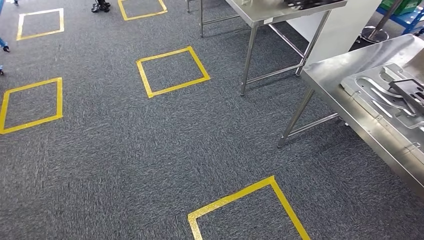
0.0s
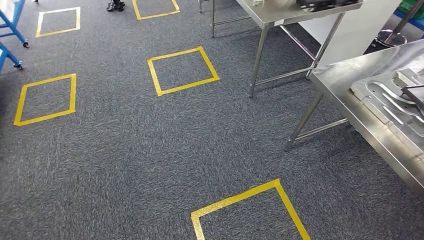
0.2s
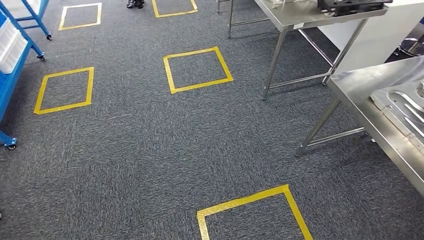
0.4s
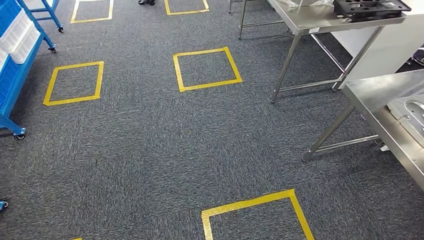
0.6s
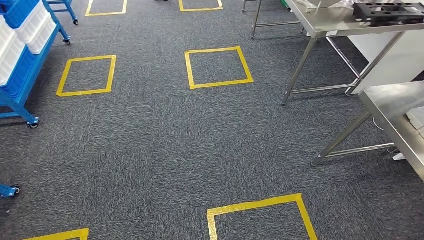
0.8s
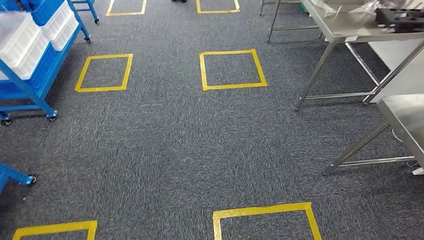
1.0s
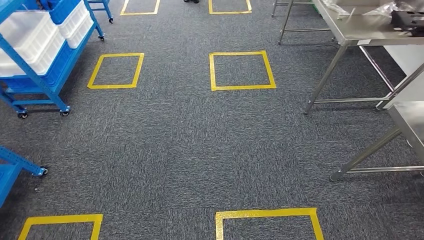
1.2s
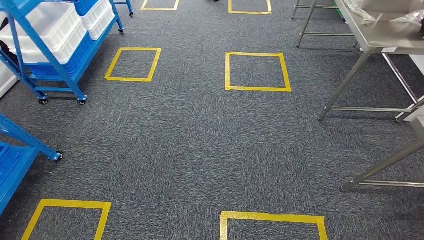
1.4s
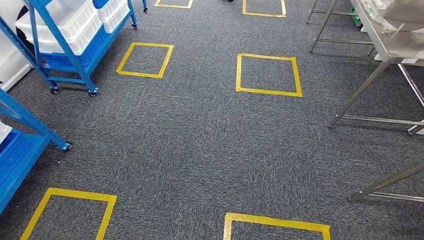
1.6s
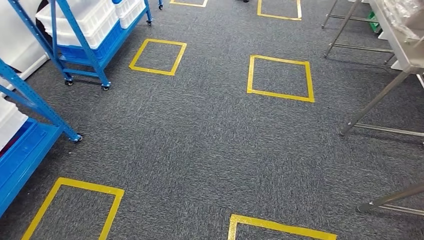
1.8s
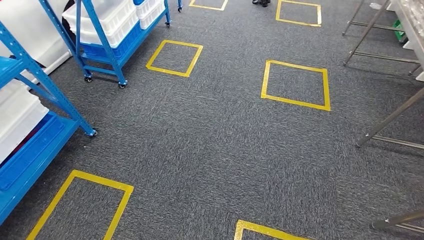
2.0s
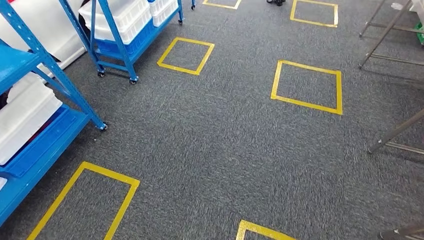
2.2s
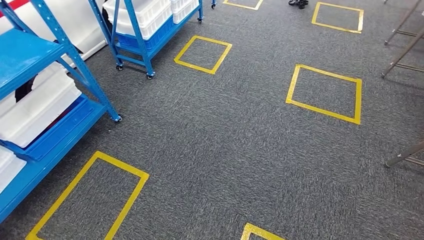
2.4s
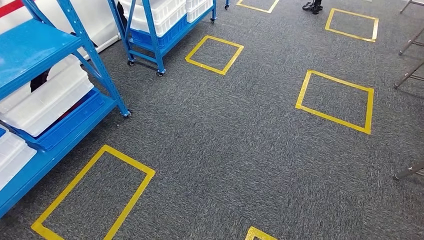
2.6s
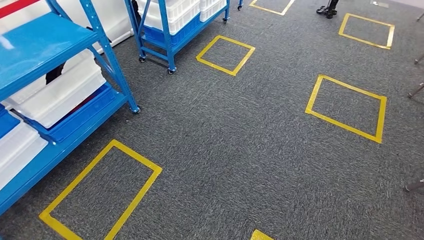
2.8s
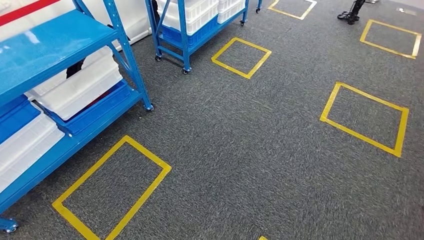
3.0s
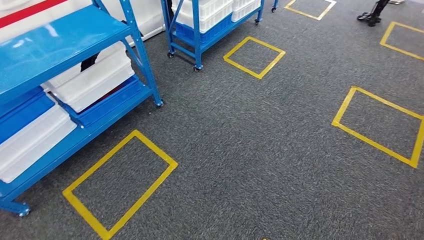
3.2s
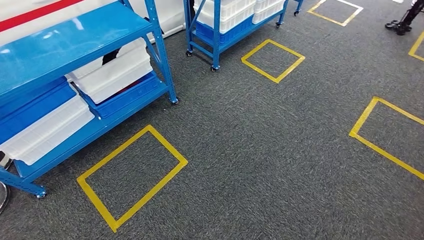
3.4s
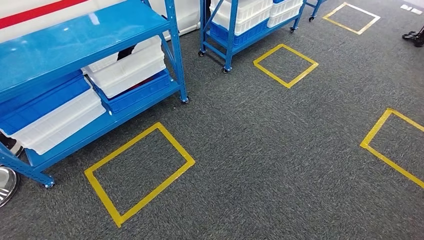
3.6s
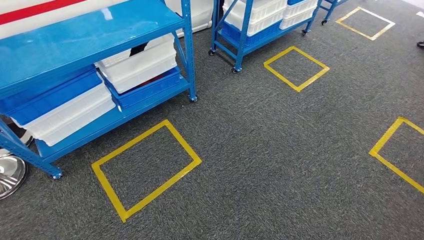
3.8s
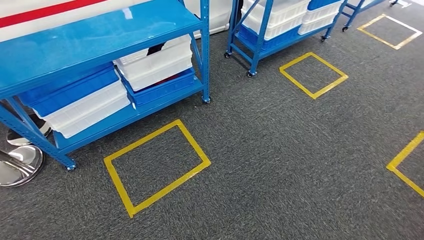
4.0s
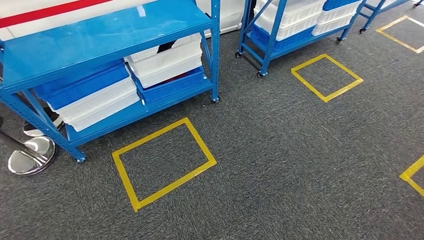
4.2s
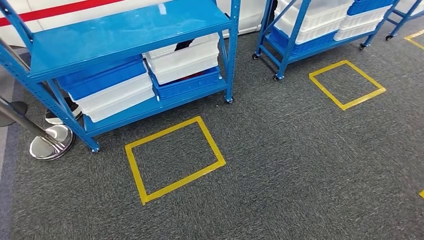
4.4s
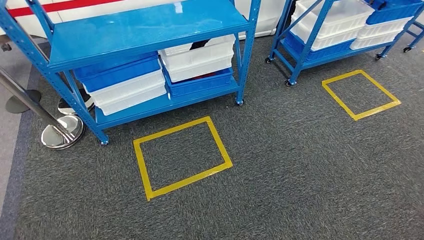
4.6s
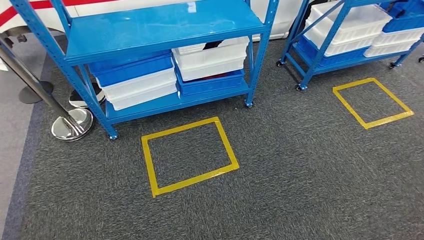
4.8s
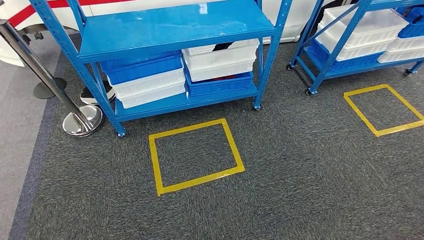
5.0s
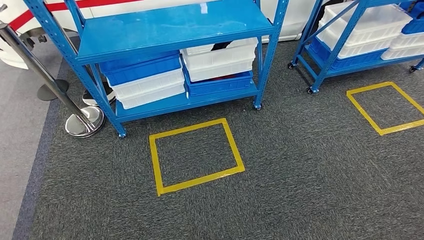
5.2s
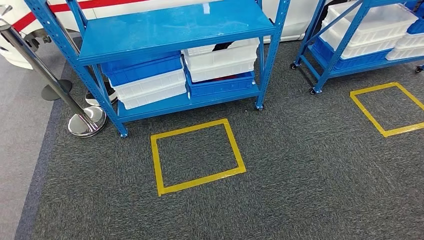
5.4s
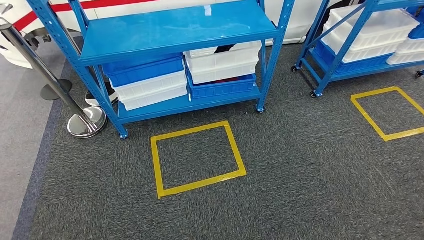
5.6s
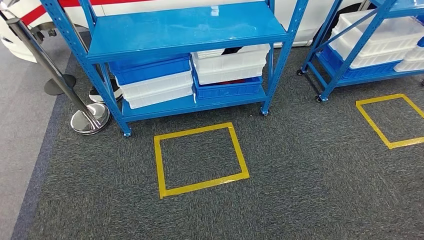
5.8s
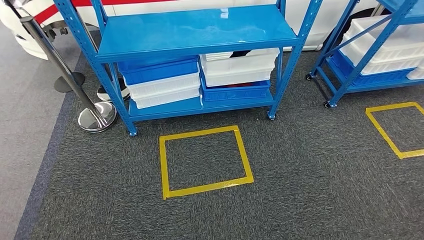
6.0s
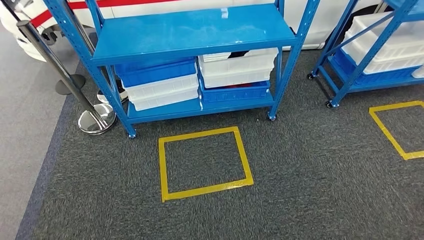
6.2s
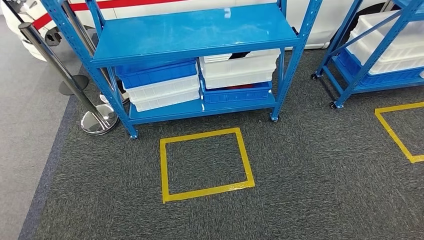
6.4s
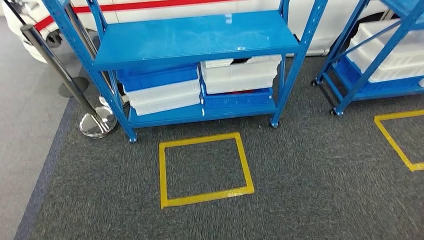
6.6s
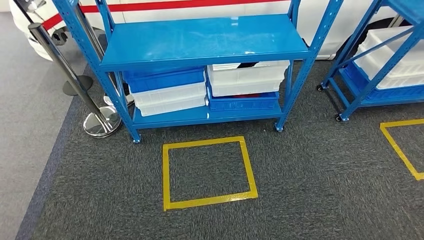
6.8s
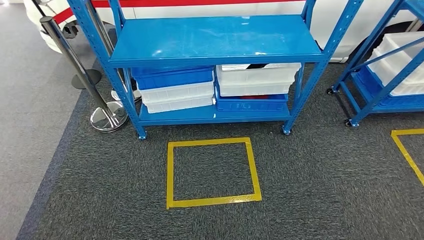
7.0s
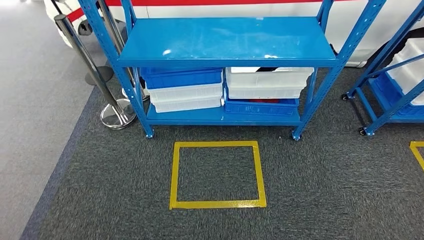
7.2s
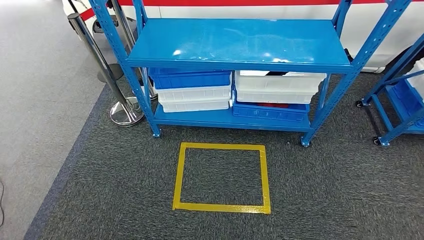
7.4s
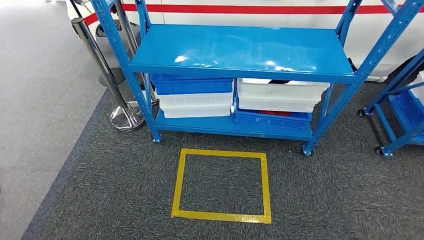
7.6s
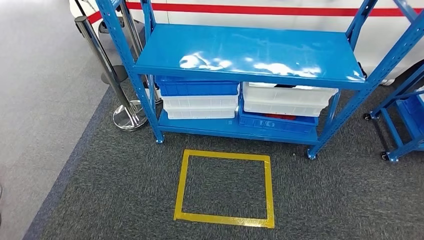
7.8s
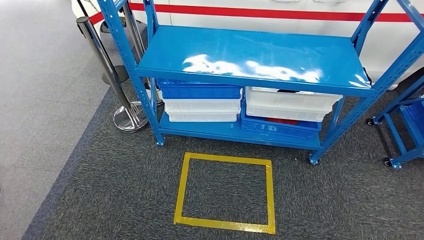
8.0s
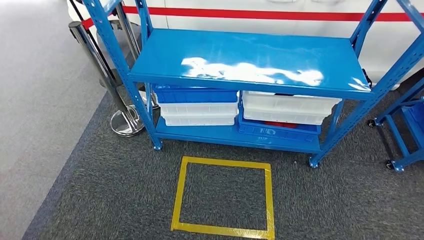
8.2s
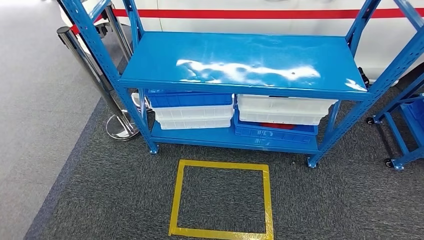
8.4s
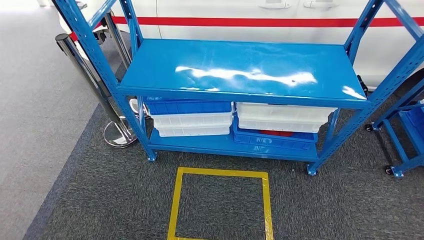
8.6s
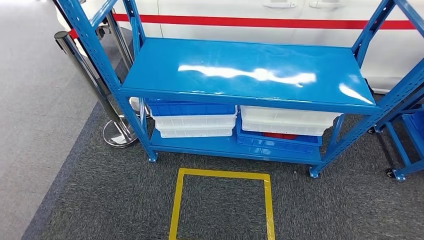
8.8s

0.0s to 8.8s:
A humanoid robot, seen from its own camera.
Step, 0.0s to 8.8s: Move to the initial position of the shelf.
